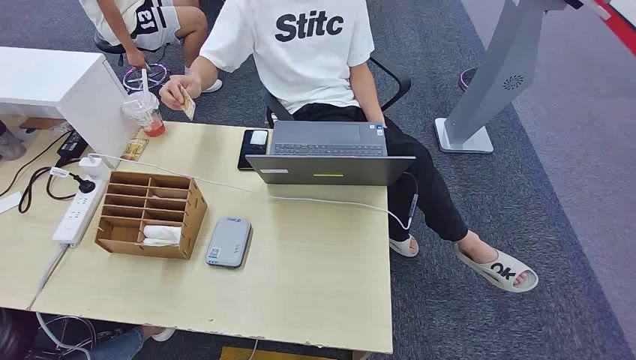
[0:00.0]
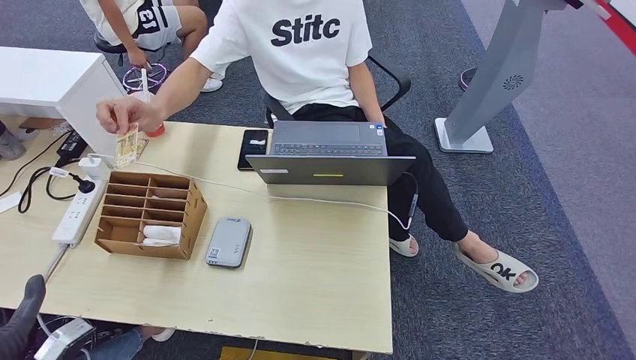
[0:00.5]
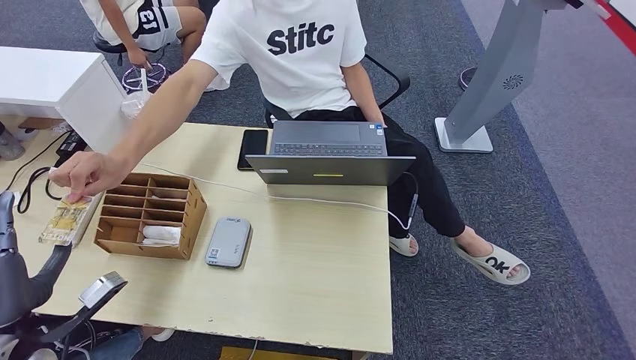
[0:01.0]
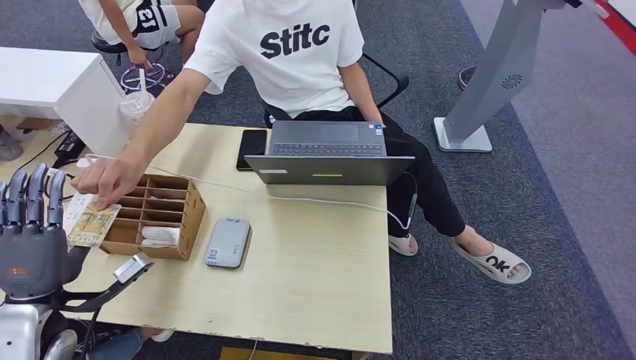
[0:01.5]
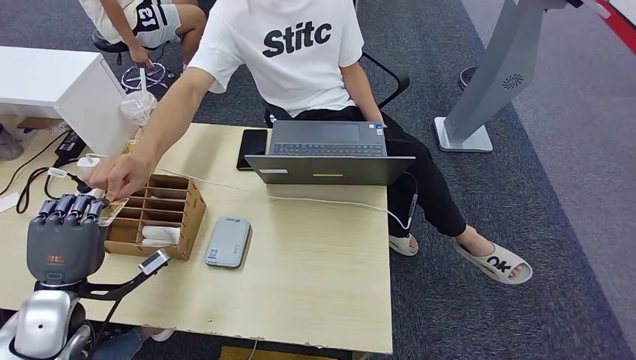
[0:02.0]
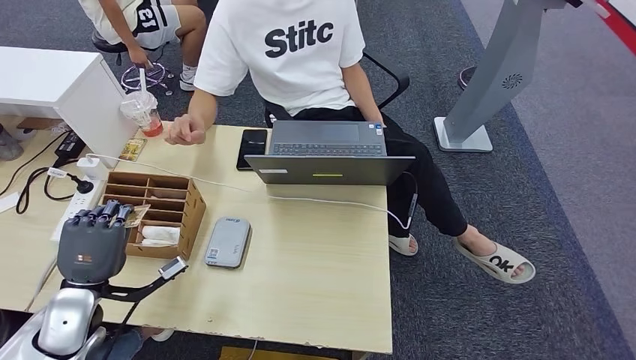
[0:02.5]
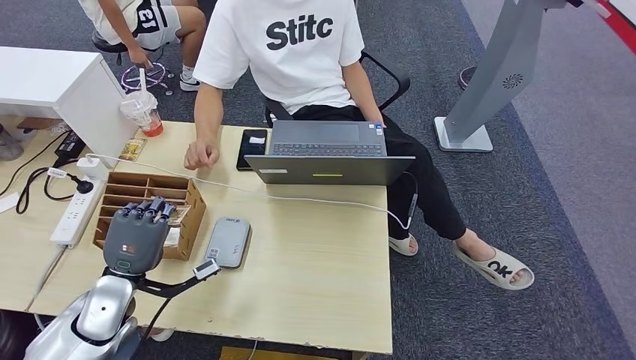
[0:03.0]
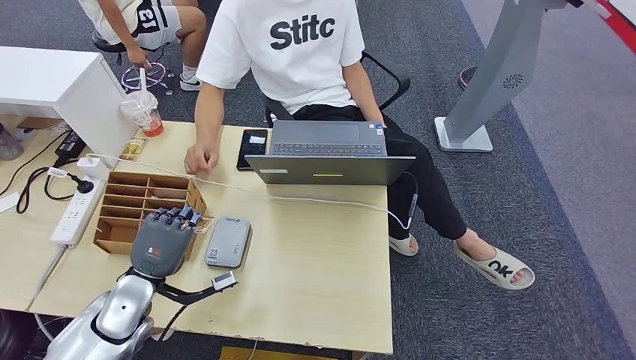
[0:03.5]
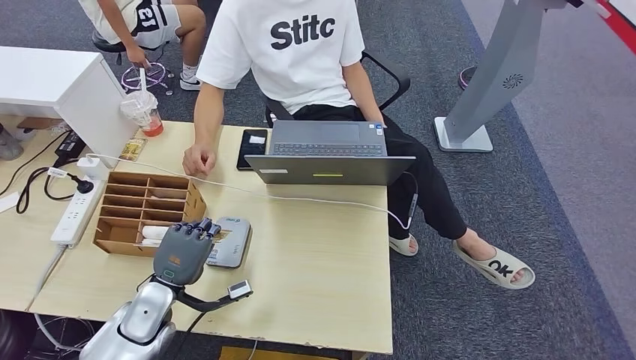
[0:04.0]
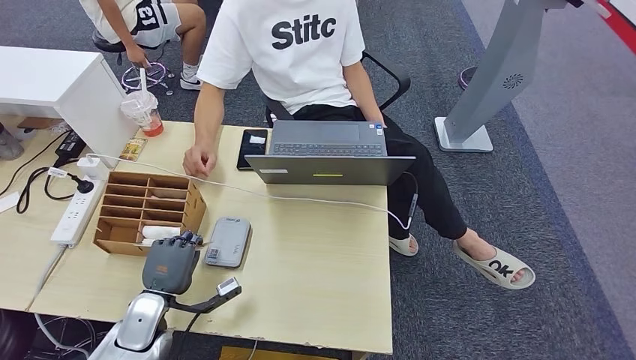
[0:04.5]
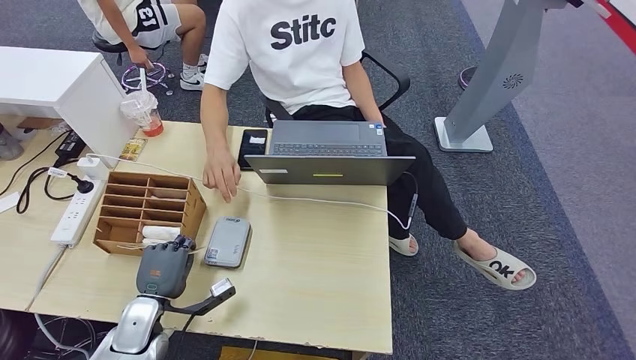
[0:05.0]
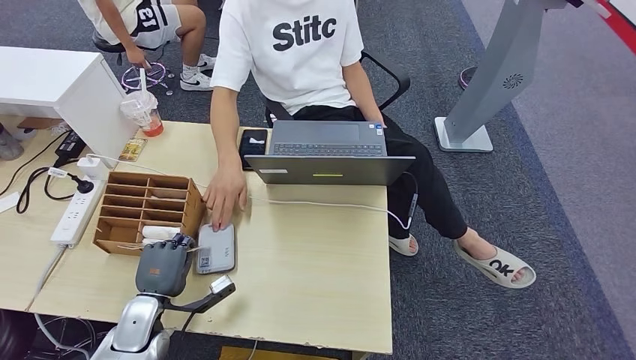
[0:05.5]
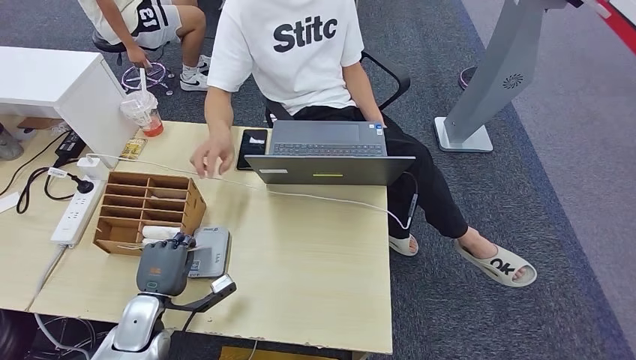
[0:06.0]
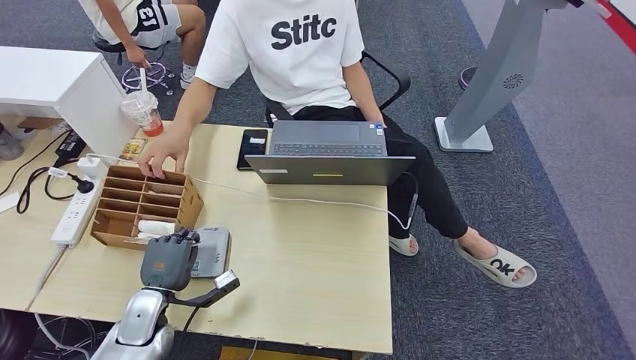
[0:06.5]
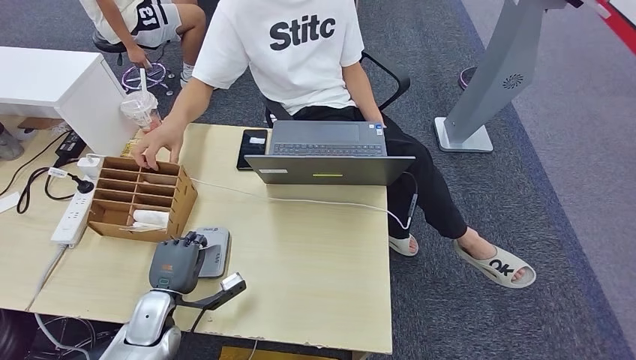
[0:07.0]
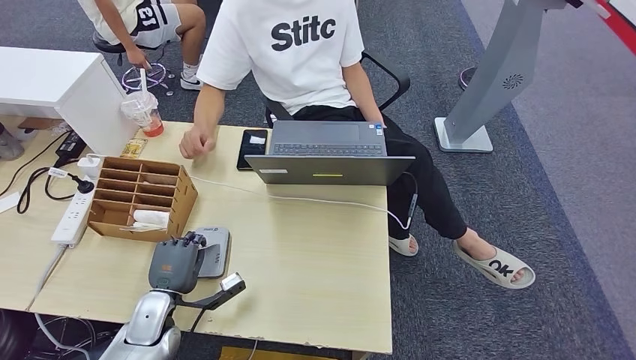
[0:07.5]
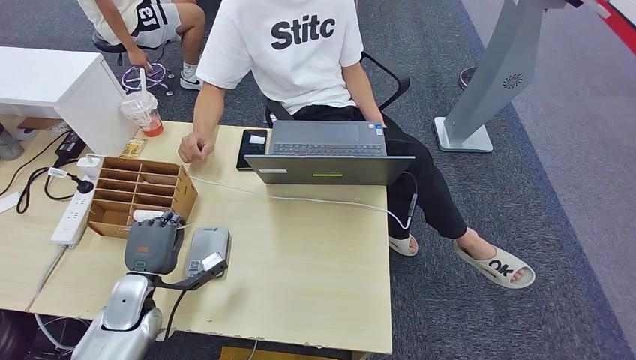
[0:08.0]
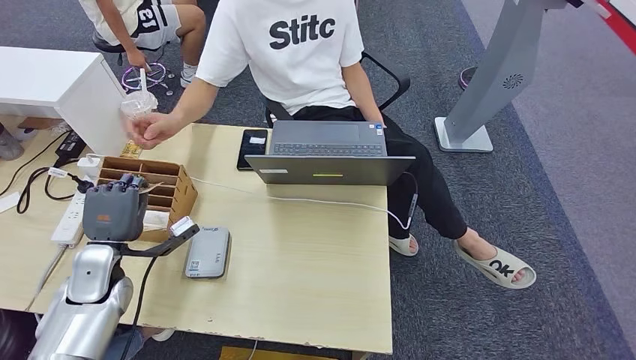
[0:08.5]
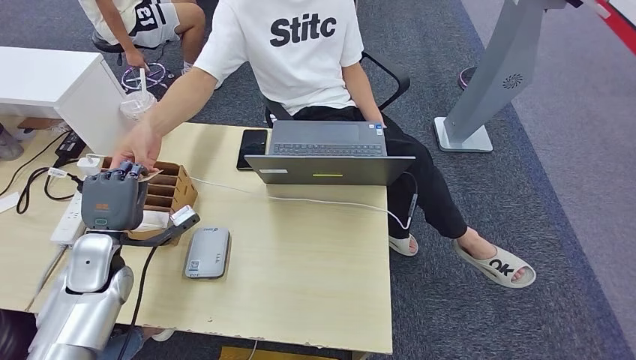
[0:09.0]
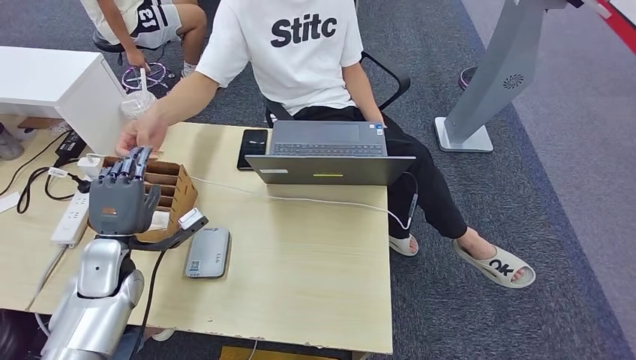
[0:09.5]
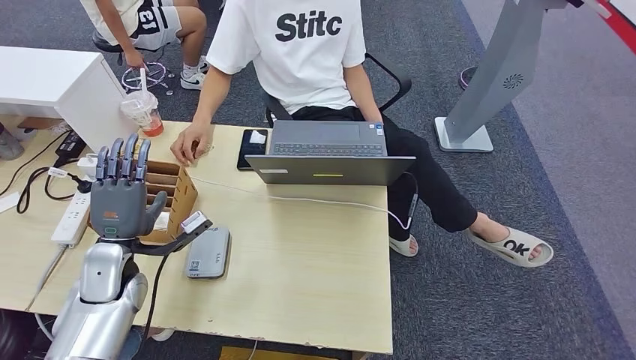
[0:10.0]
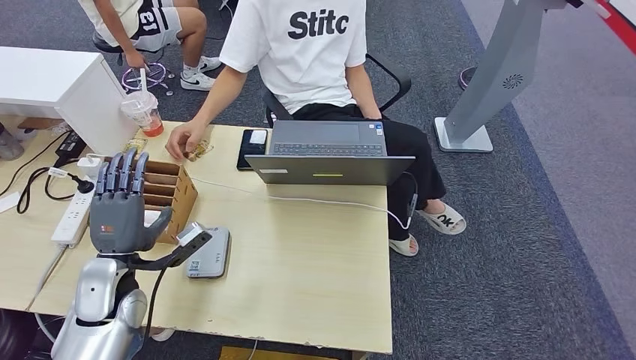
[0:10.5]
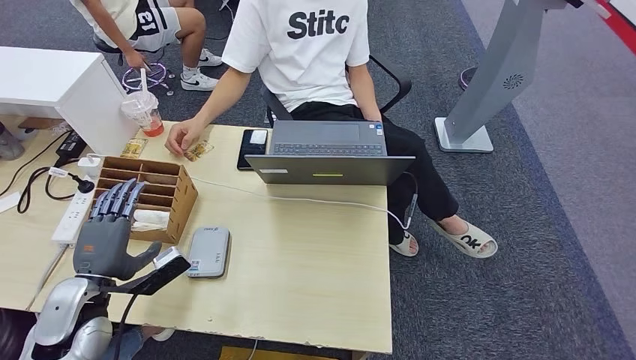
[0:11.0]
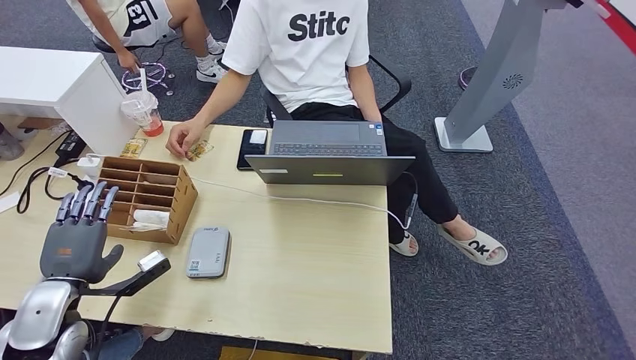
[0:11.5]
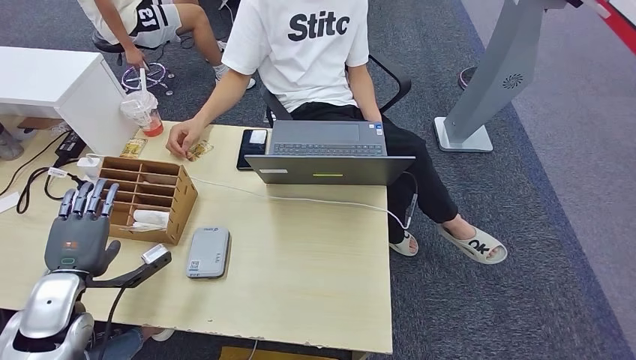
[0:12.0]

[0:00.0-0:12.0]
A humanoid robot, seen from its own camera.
Step, 0:00.0 to 0:03.0: Take the ID card from the person's hand.
Step, 0:03.5 to 0:07.5: Place the ID card on the card reader.
Step, 0:08.0 to 0:09.5: Hand the ID card to the person.
0:02.0 to 0:04.0: The left hand shifts about 15 cm to the right and downward.
0:04.0 to 0:06.0: The hands move only a little.
0:06.0 to 0:08.0: The hands move only a little.
0:08.0 to 0:10.0: The left hand shifts about 10 cm upward.
0:10.0 to 0:12.0: The left hand is displaced to the left by some 10 cm.

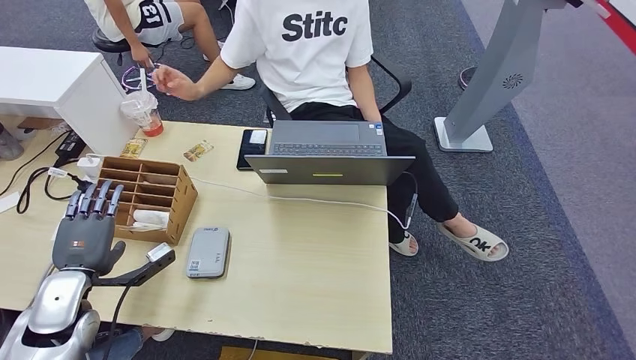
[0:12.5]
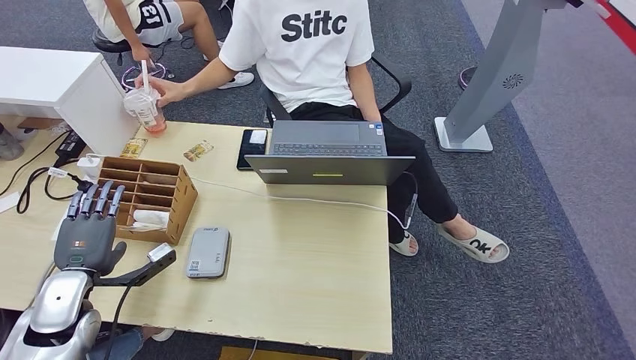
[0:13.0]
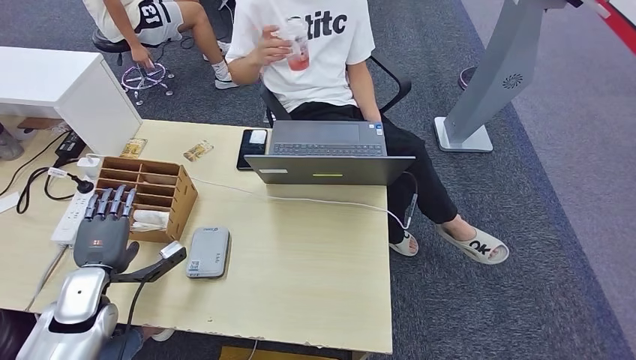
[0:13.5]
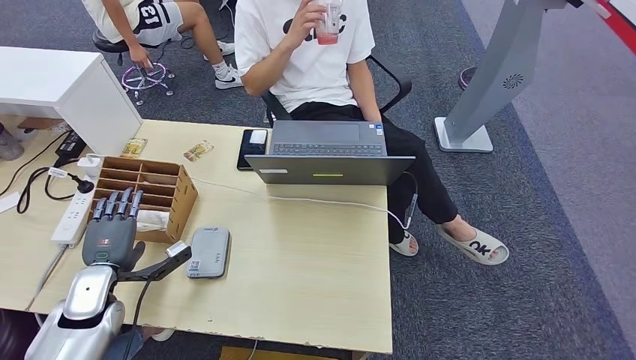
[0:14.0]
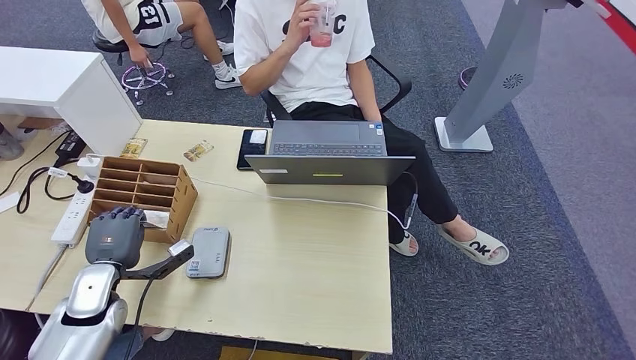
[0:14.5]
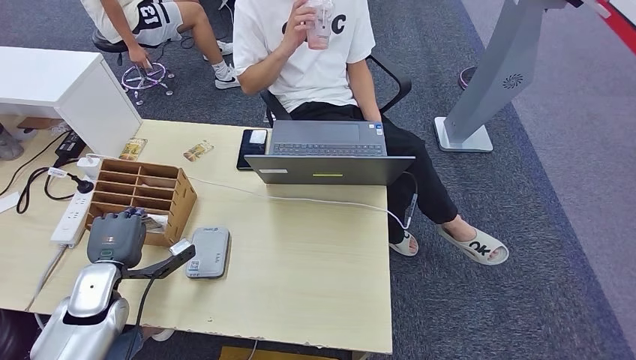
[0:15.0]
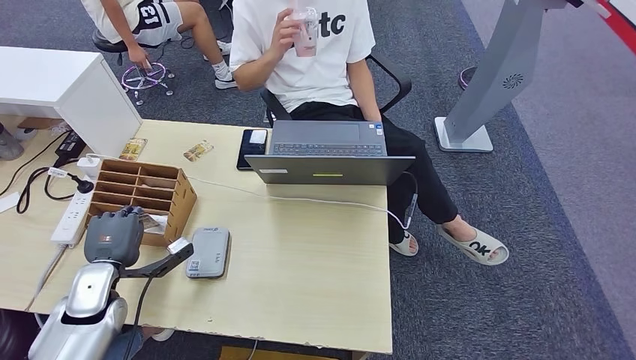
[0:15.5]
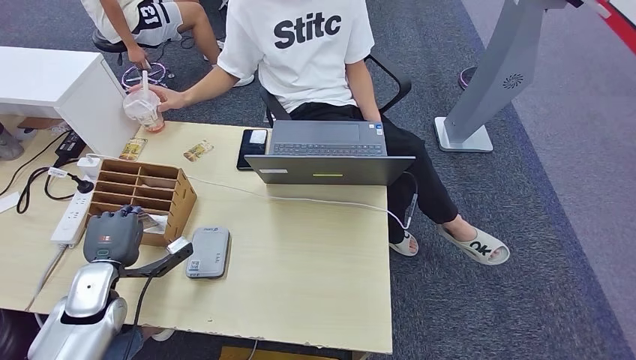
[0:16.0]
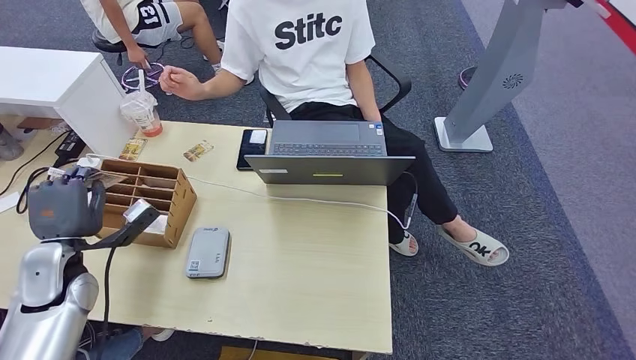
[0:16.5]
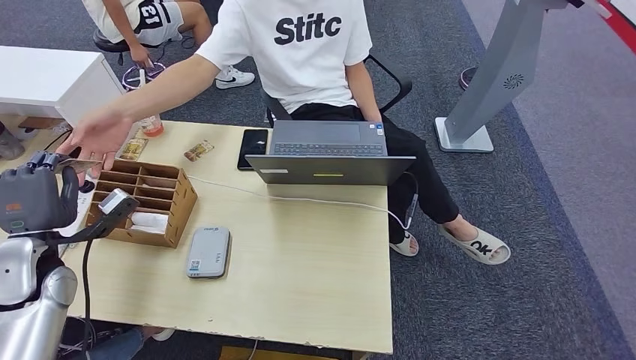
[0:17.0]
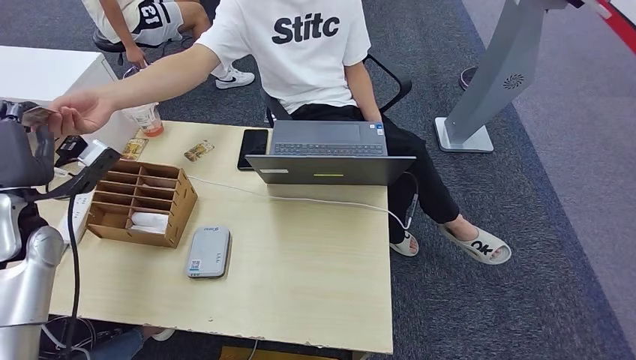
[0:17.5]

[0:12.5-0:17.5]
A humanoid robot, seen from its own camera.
Step, 0:12.5 to 0:16.0: Pick up the room key from the key card box.
Step, 0:16.5 to 0:17.5: Hand the room key to the person.
0:12.5 to 0:15.0: The left hand moves some 5 cm.
0:15.0 to 0:17.5: The left hand heads upward, covering approximately 15 cm.
